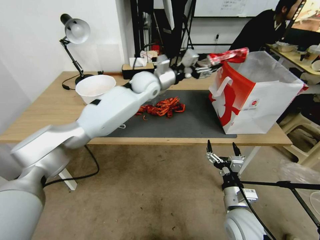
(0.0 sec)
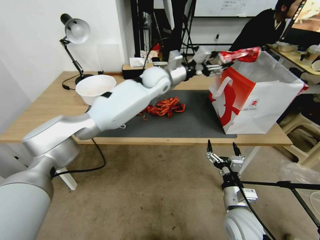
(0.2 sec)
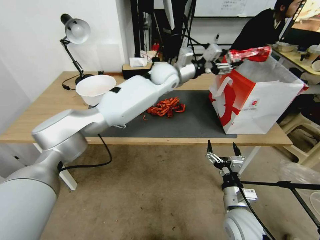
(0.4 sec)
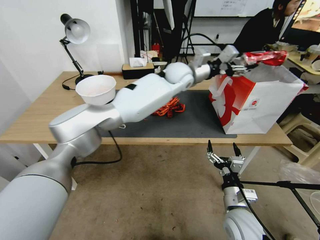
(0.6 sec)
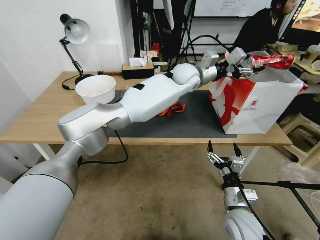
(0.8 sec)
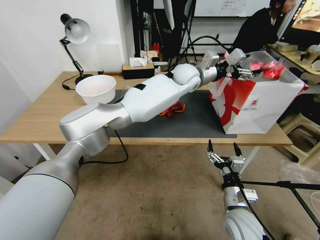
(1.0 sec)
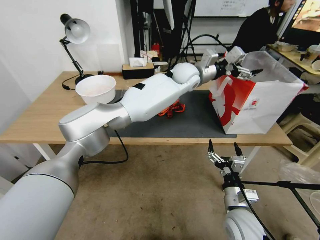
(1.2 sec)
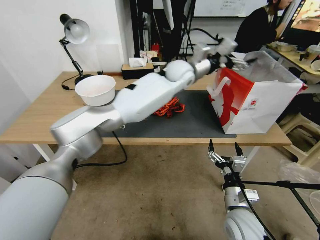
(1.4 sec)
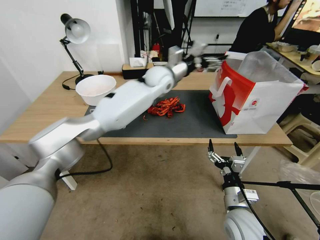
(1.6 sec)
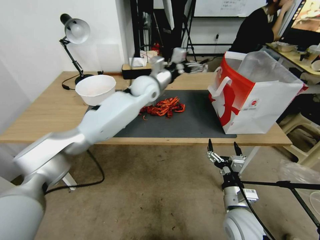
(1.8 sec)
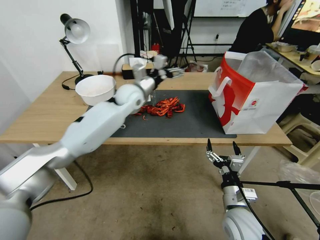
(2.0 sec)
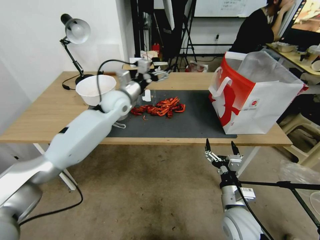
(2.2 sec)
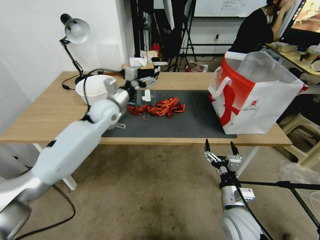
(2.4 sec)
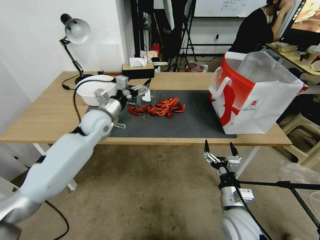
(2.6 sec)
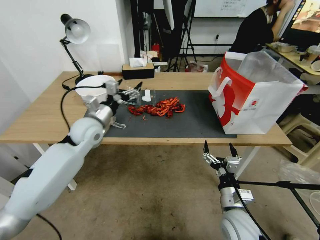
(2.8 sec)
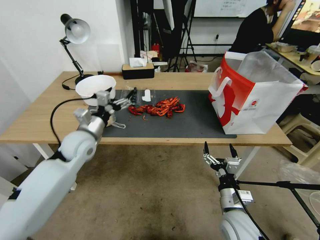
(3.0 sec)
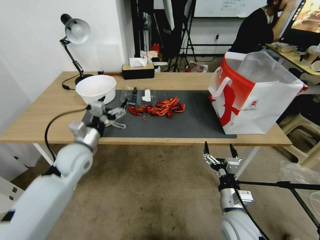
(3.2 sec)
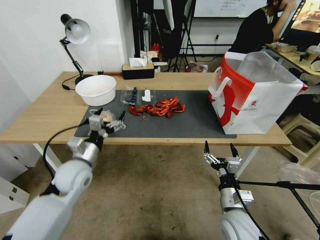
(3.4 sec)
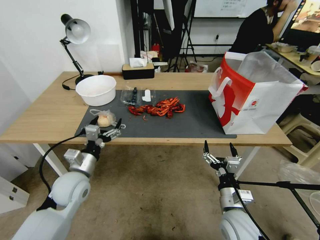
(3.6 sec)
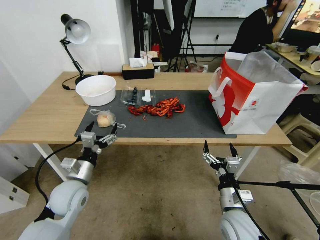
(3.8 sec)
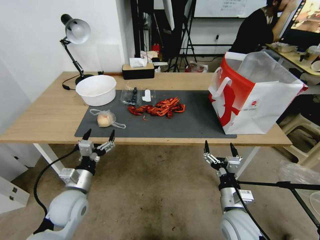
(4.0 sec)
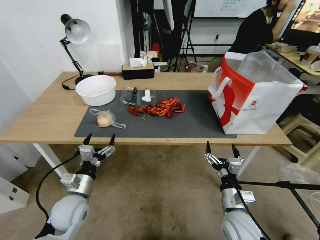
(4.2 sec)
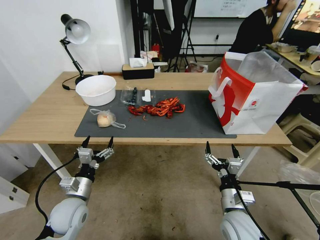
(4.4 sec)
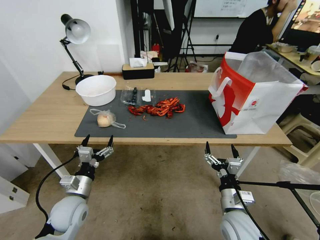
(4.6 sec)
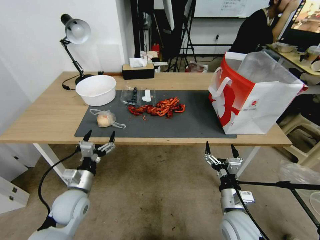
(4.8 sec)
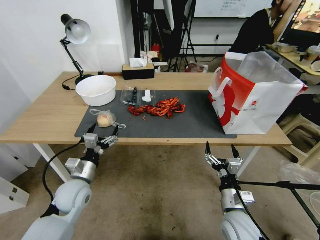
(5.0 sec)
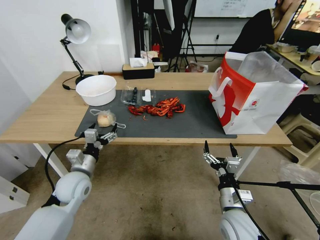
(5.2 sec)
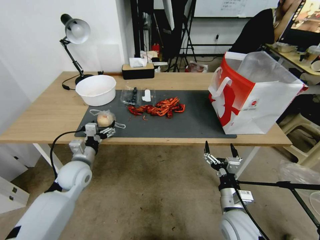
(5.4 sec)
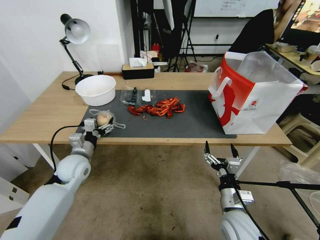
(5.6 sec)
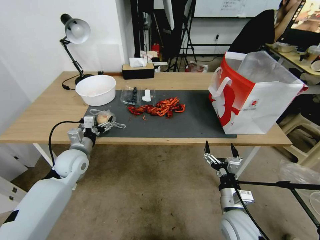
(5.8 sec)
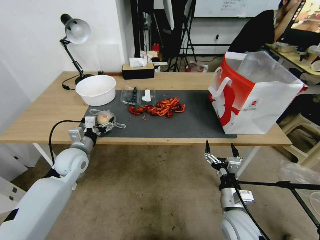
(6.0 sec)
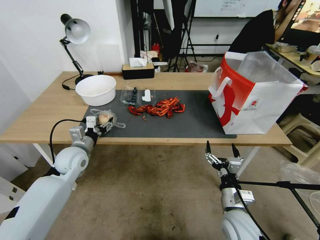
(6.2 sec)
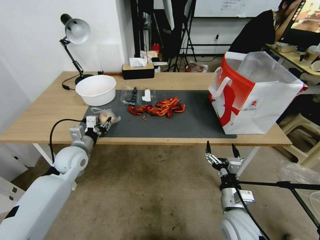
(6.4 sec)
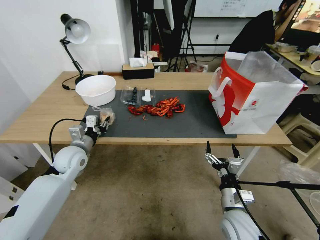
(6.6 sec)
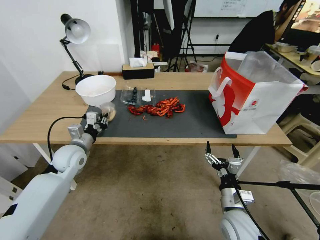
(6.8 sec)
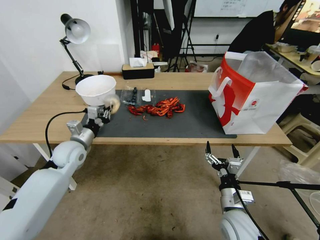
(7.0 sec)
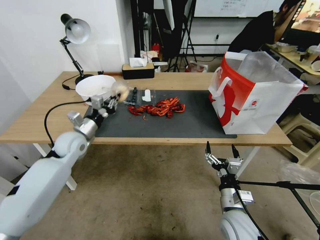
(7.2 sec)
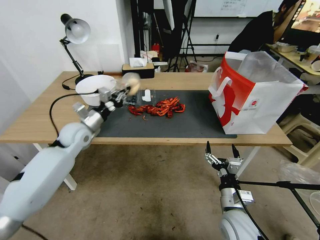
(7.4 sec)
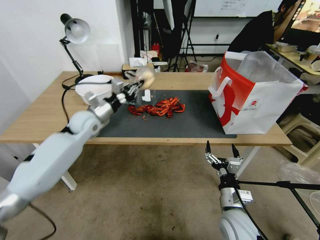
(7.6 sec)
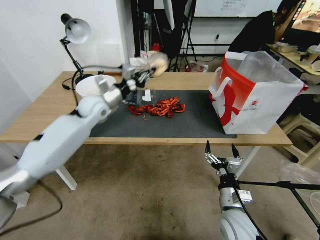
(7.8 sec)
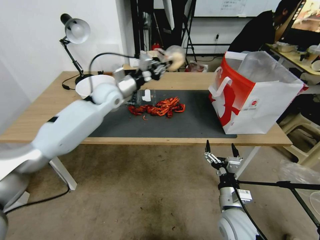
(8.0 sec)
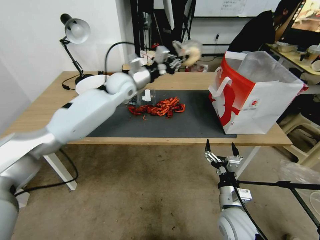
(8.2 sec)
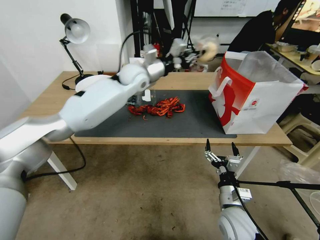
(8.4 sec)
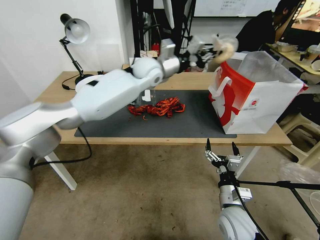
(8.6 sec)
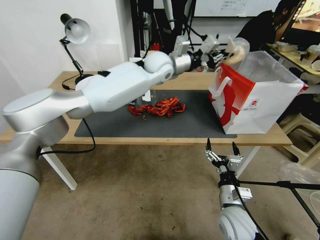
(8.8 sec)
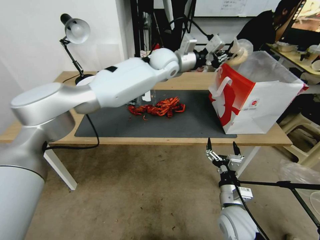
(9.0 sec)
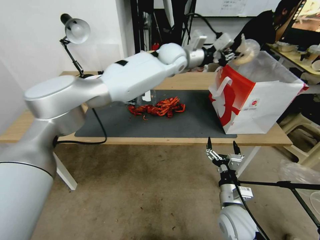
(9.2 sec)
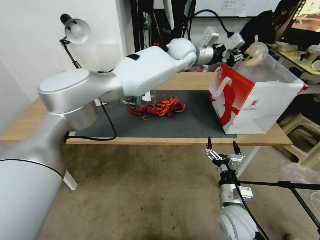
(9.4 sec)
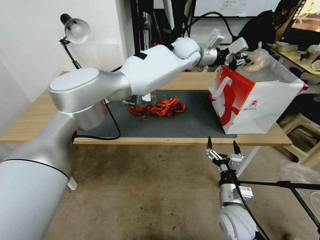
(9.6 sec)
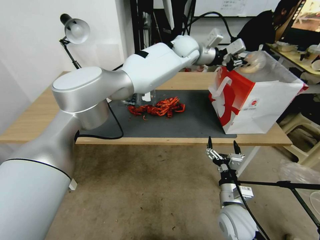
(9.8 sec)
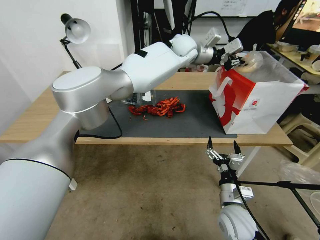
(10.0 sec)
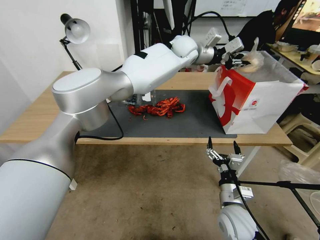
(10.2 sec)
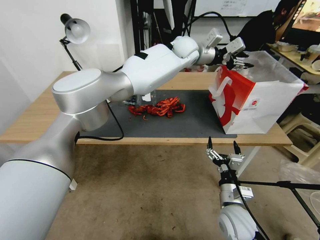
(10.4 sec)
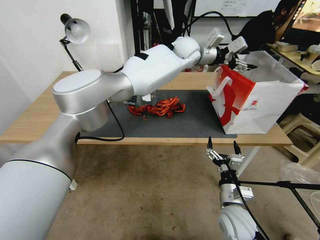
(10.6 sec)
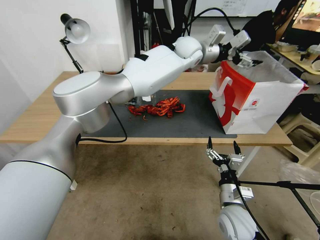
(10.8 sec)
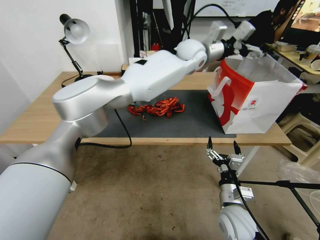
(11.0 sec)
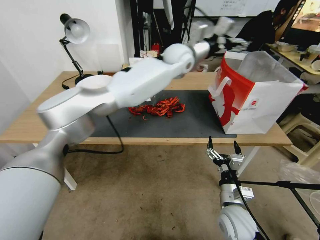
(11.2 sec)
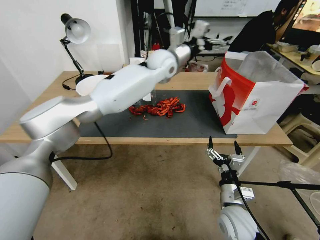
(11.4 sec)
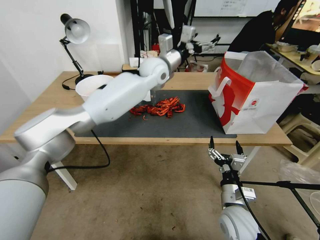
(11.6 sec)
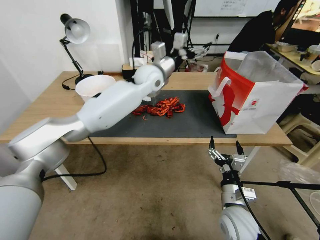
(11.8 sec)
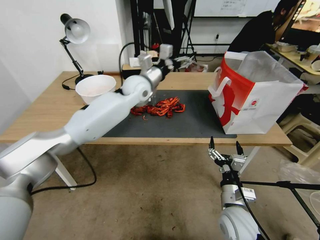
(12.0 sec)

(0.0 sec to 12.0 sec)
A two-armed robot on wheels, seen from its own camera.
0.0 sec - 1.6 sec: The left gripper goes to the right and returns, about 15 cm each way, and opens.
1.6 sec - 3.0 sec: The left gripper goes roughly 35 cm to the left, backward and downward.
3.0 sec - 4.4 sec: The left gripper goes roughly 20 cm backward and downward.
4.4 sec - 6.0 sec: The left gripper is displaced forward and upward by about 15 cm.
6.0 sec - 7.6 sec: The left gripper travels forward and upward by roughly 15 cm, and closes its fingers.
7.6 sec - 9.0 sec: The left gripper travels to the right, upward and forward by about 35 cm.
9.0 sec - 10.4 sec: The left gripper moves to the right, some 5 cm, and opens up.
10.4 sec - 12.0 sec: The left gripper goes some 20 cm to the left, downward and backward, and opens.

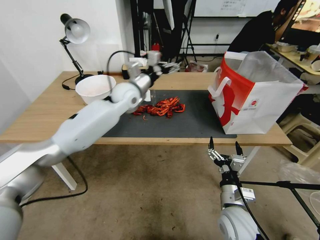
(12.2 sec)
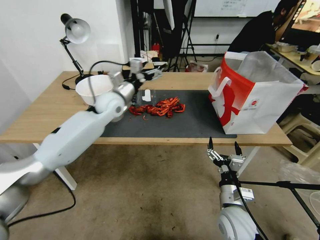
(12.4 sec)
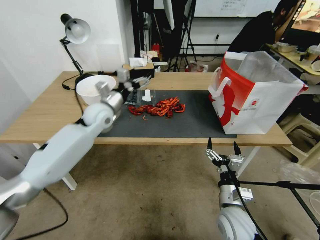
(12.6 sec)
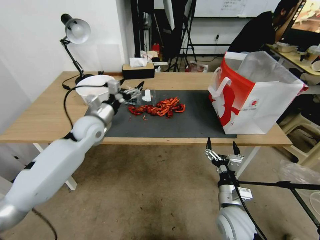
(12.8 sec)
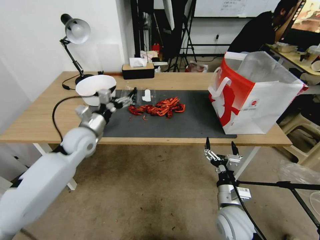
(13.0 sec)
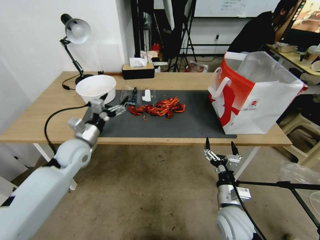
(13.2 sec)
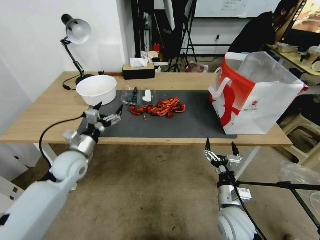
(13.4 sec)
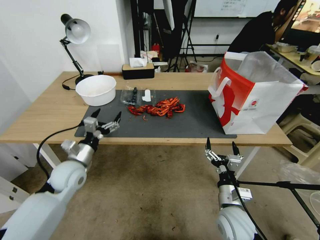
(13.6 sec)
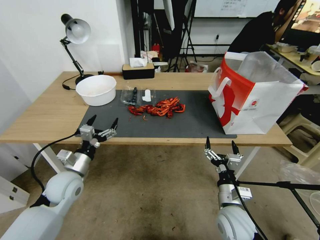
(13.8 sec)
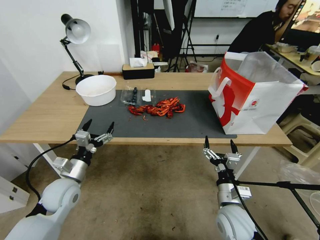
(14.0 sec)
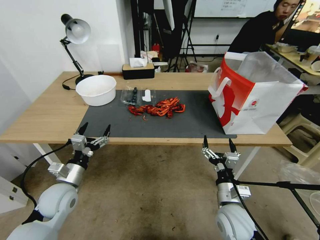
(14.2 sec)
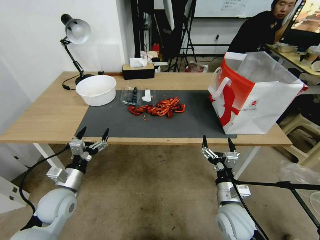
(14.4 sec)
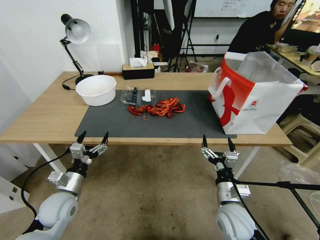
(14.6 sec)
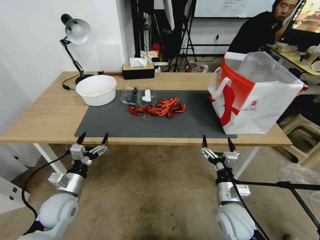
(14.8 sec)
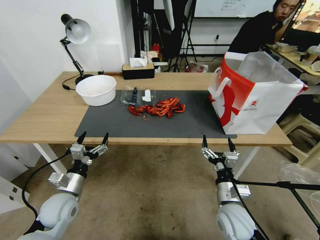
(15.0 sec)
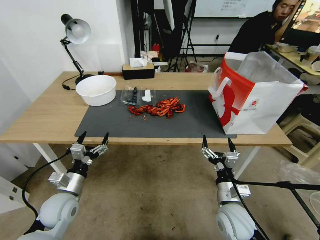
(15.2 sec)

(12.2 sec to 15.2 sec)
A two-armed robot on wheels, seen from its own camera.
12.2 sec - 13.8 sec: The left gripper is displaced backward, downward and to the left by some 35 cm.
13.8 sec - 15.2 sec: The left gripper changes place by approximately 5 cm.
